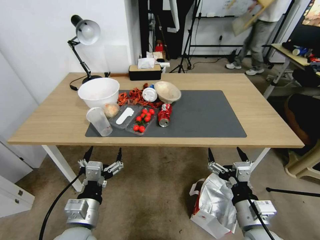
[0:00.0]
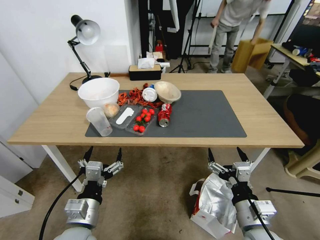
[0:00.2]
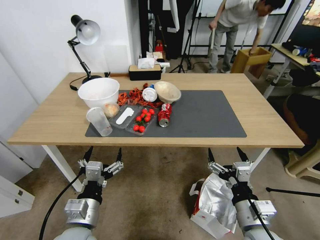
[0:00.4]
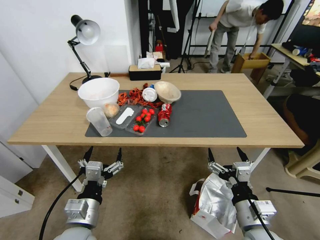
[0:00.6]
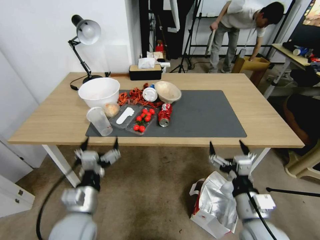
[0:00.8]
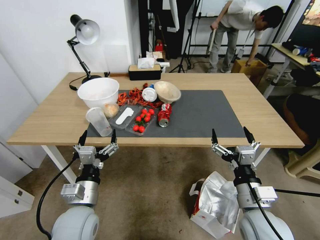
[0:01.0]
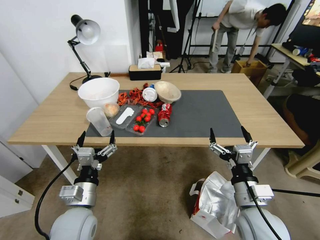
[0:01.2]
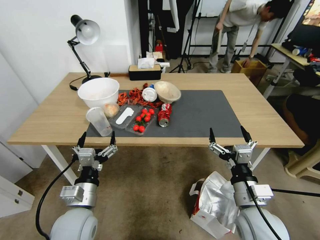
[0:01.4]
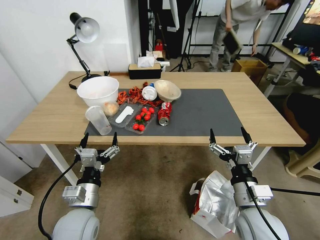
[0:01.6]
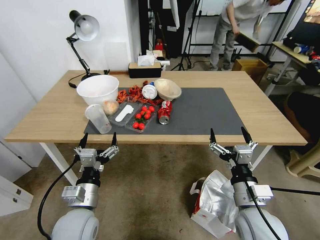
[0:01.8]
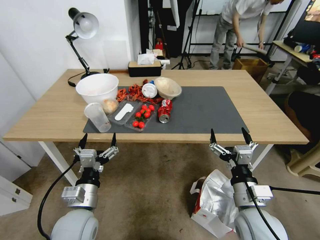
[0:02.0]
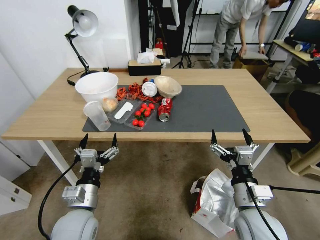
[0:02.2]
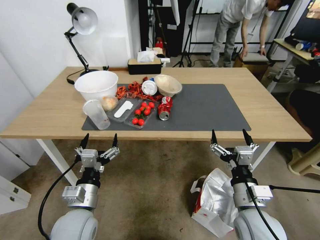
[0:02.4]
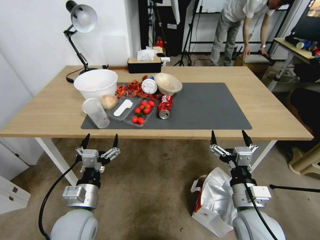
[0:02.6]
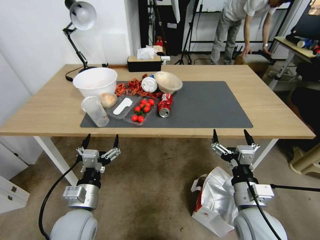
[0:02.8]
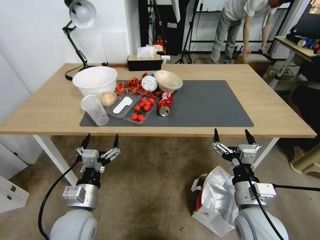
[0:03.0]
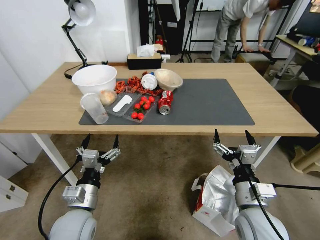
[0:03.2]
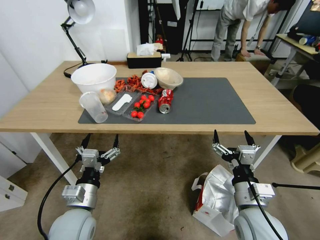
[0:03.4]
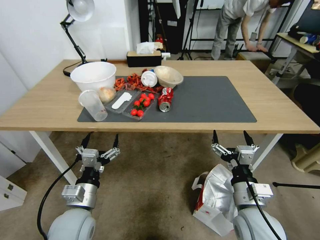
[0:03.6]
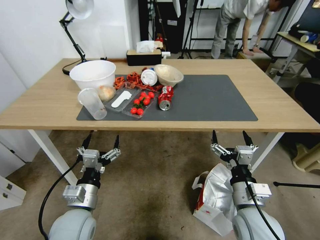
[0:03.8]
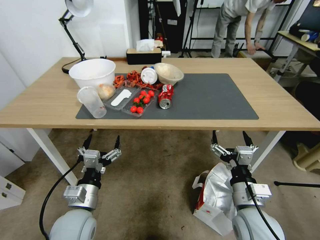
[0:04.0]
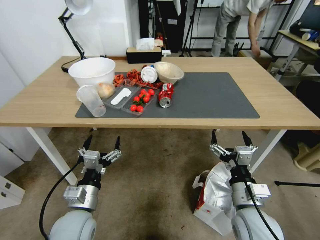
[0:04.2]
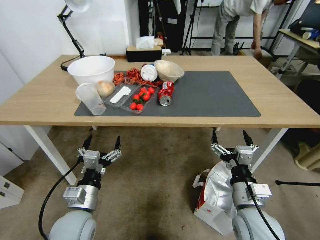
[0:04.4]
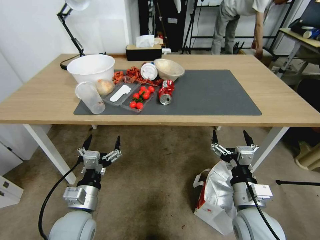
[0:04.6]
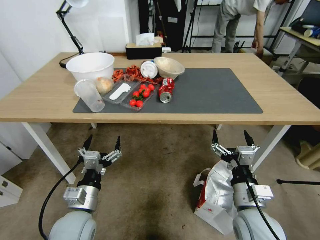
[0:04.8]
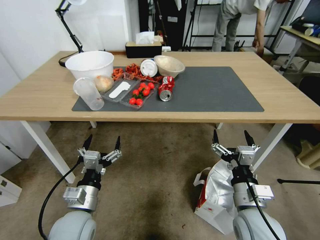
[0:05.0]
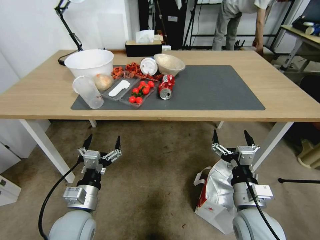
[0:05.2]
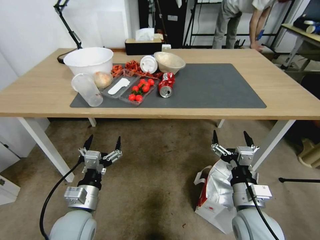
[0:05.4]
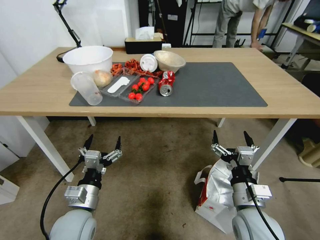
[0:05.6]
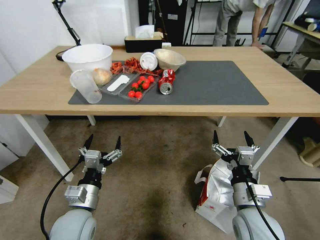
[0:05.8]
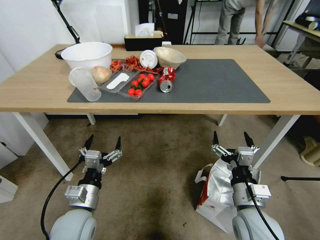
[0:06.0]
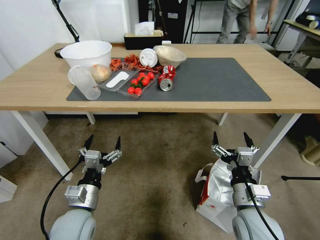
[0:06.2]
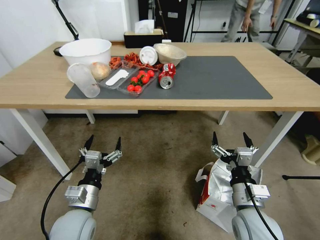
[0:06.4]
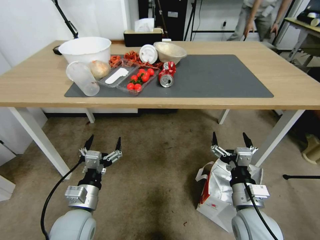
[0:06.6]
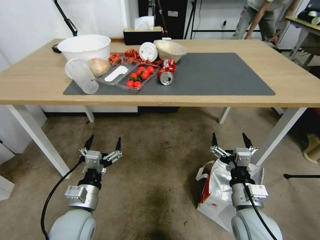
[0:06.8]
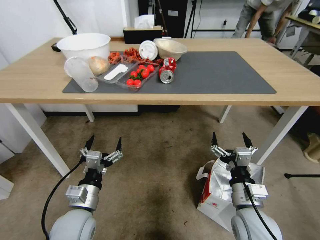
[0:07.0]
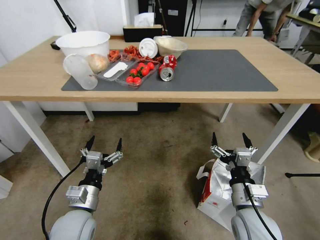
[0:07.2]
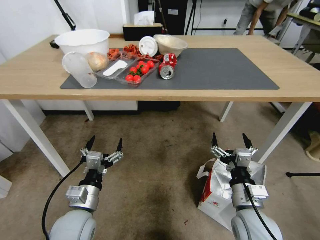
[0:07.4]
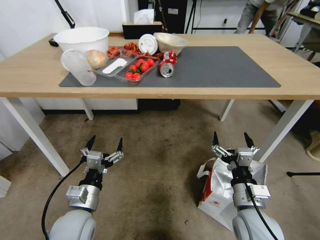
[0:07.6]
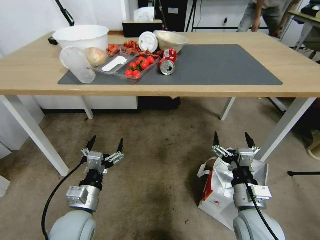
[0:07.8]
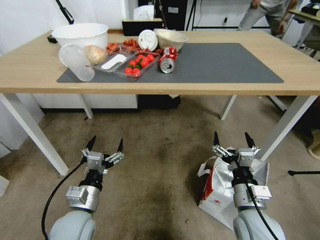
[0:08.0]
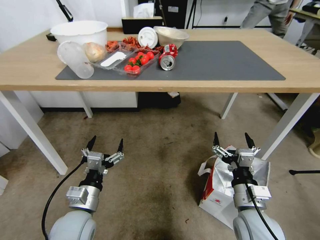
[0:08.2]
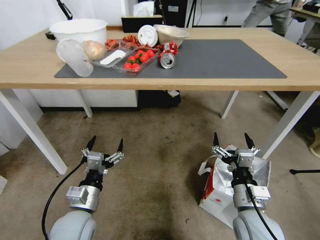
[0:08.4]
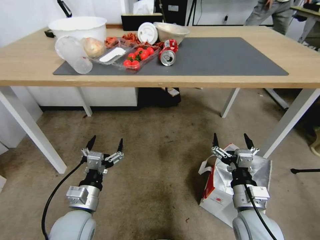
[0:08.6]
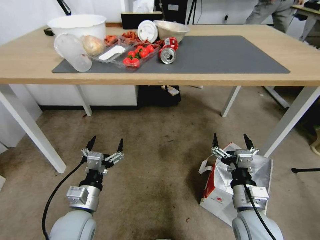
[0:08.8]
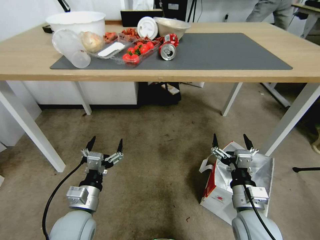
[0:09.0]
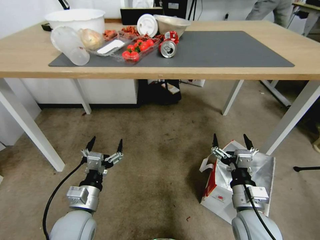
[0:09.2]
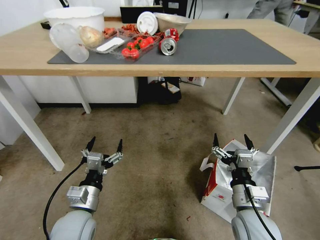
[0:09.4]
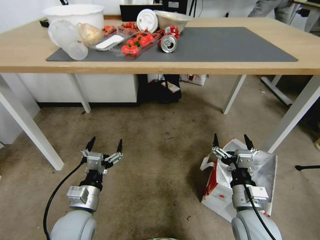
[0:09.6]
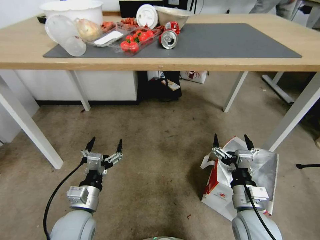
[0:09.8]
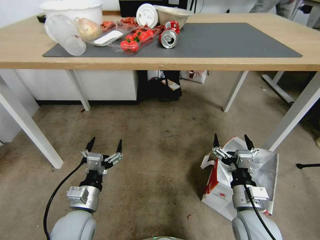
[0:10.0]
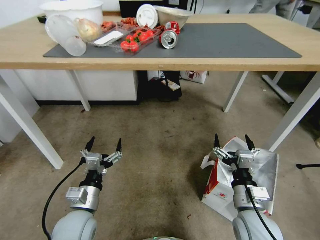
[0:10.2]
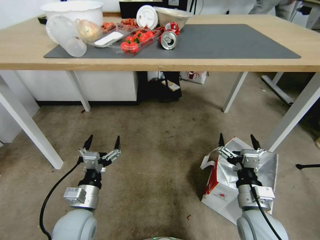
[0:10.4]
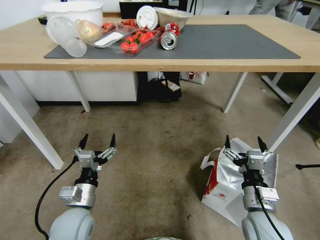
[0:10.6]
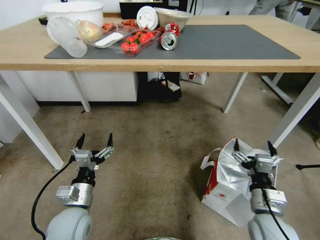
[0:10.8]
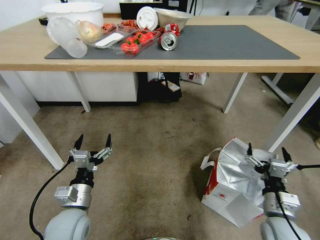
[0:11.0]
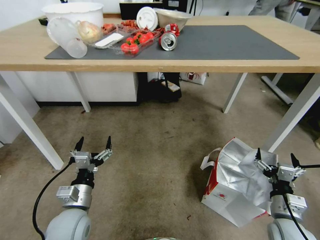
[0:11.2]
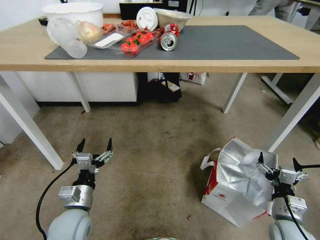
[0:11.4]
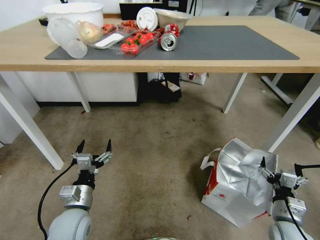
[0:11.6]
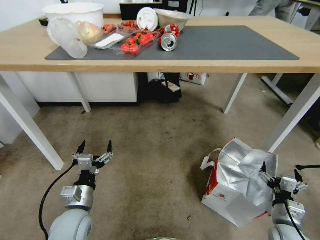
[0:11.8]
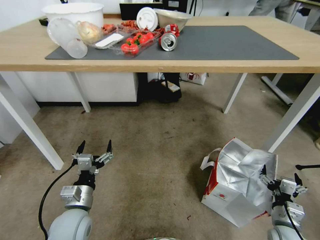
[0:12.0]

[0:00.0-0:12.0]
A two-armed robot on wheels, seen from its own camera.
Task of the whole recording: Pick up the food delivery bag from the floor and place it on the table.
0:10.4 to 0:12.0: The right gripper travels to the right and downward by approximately 20 cm.

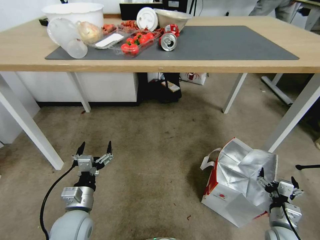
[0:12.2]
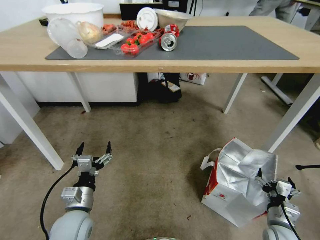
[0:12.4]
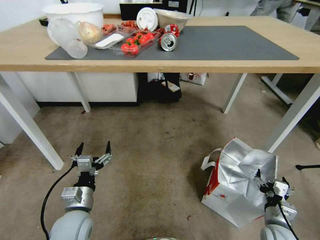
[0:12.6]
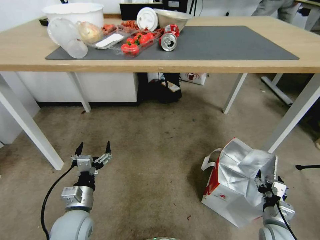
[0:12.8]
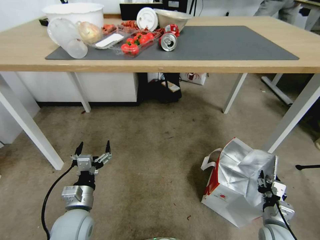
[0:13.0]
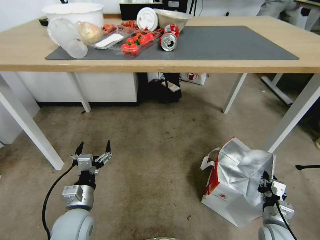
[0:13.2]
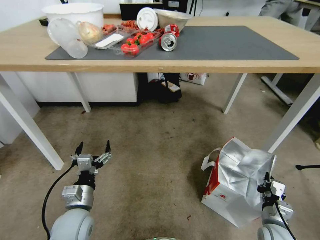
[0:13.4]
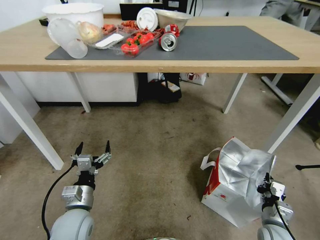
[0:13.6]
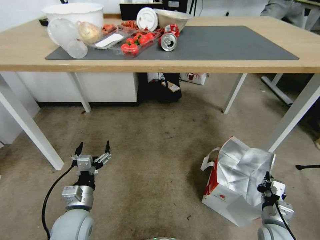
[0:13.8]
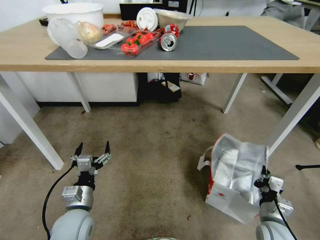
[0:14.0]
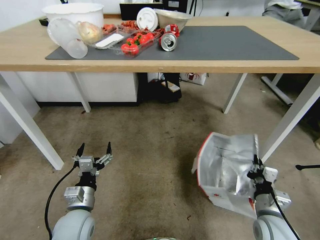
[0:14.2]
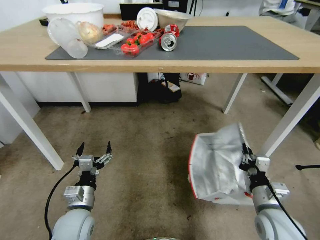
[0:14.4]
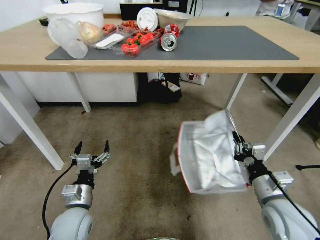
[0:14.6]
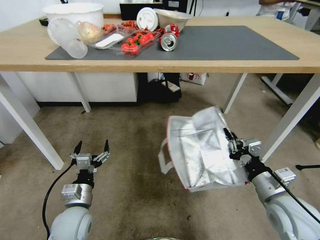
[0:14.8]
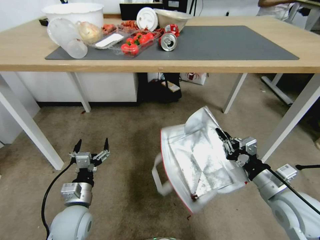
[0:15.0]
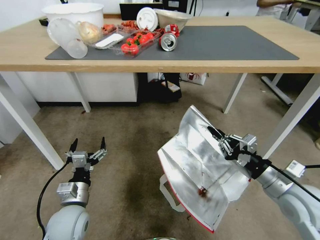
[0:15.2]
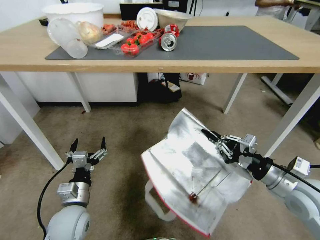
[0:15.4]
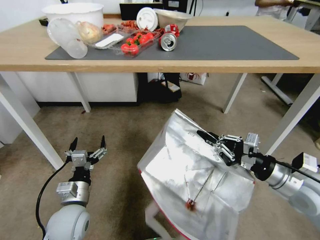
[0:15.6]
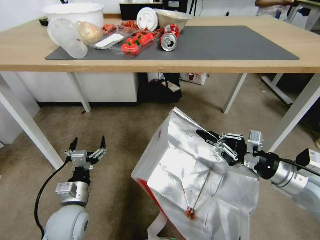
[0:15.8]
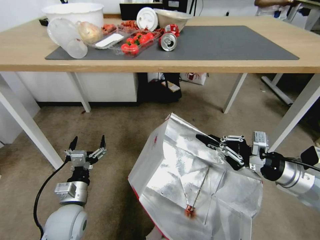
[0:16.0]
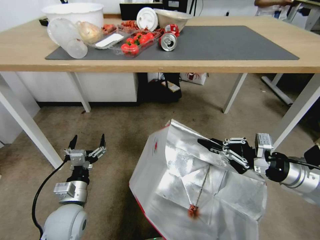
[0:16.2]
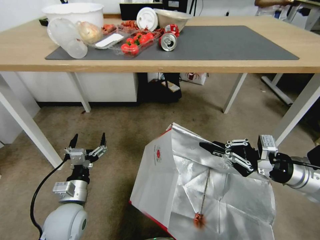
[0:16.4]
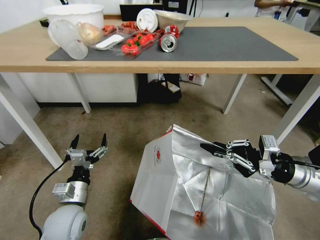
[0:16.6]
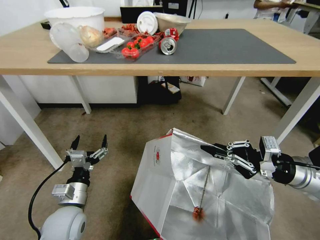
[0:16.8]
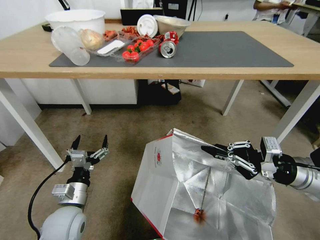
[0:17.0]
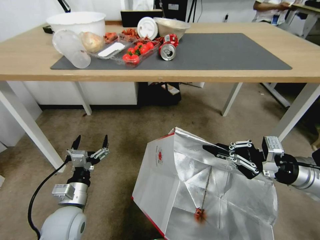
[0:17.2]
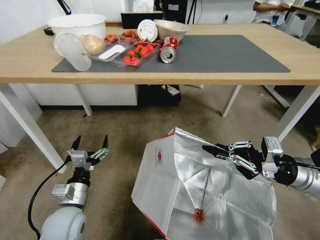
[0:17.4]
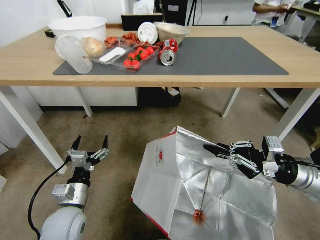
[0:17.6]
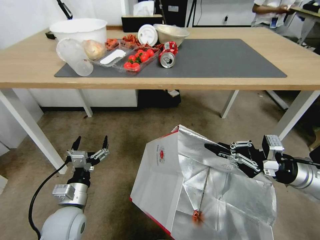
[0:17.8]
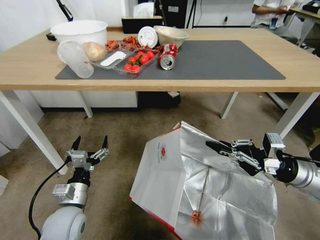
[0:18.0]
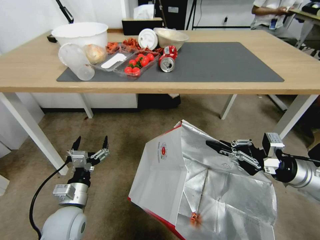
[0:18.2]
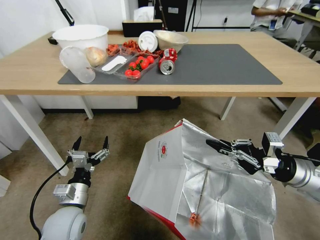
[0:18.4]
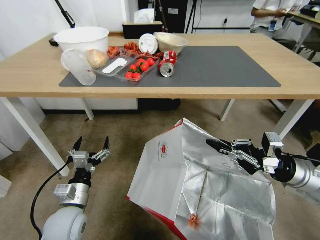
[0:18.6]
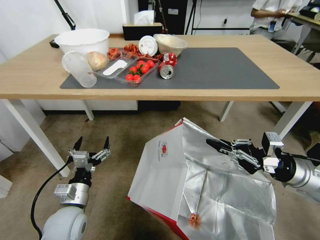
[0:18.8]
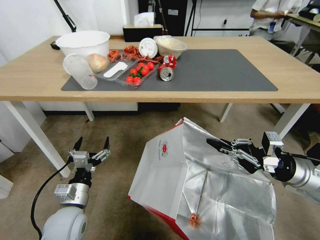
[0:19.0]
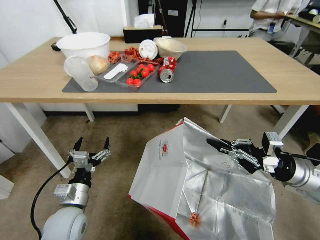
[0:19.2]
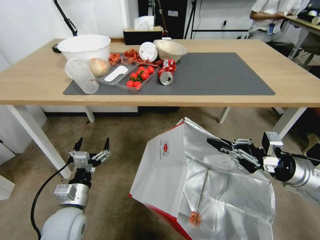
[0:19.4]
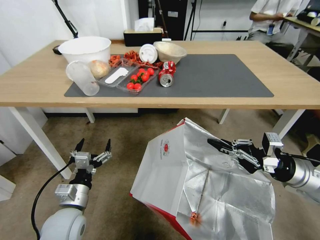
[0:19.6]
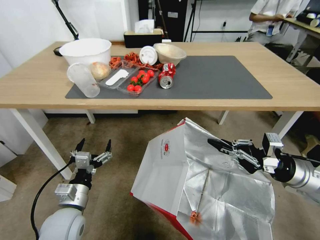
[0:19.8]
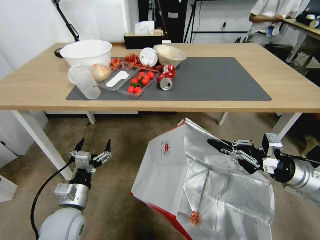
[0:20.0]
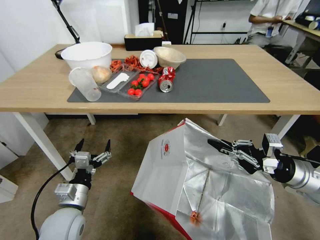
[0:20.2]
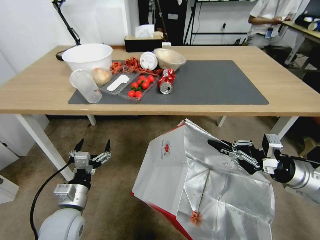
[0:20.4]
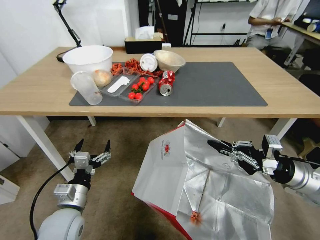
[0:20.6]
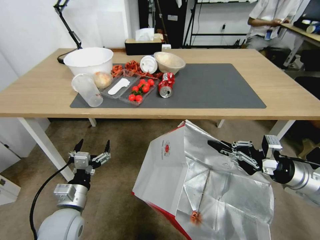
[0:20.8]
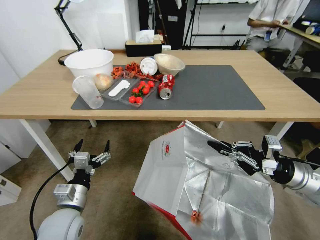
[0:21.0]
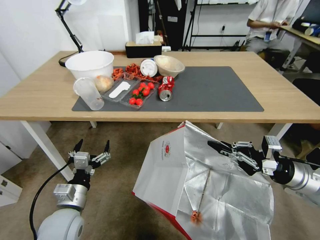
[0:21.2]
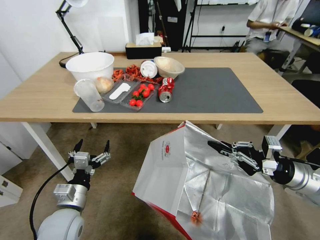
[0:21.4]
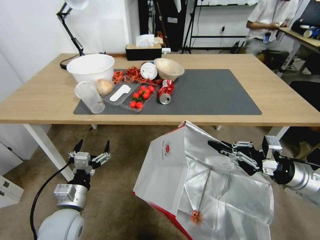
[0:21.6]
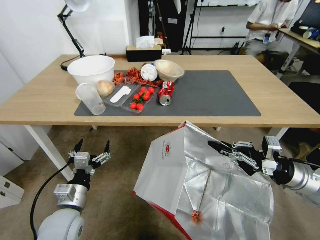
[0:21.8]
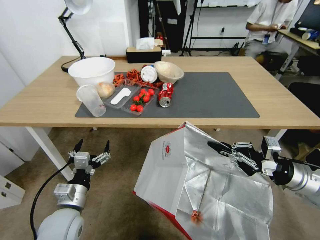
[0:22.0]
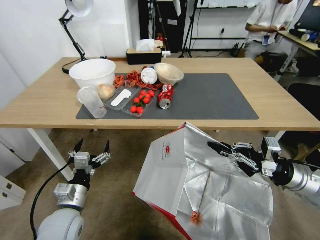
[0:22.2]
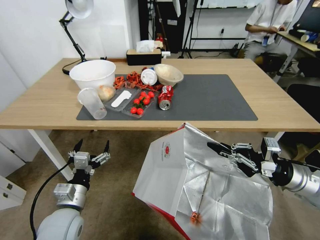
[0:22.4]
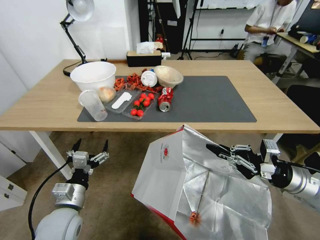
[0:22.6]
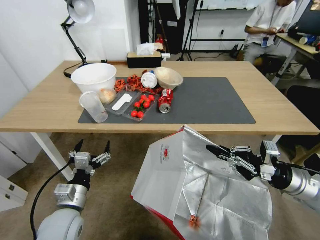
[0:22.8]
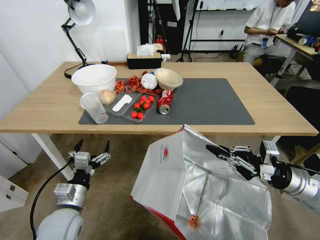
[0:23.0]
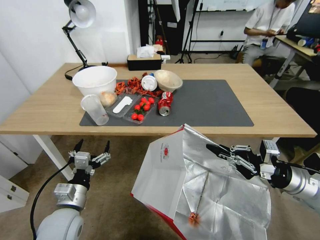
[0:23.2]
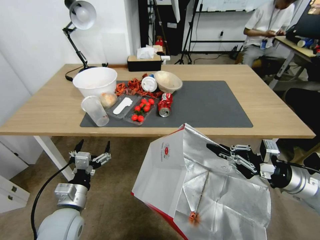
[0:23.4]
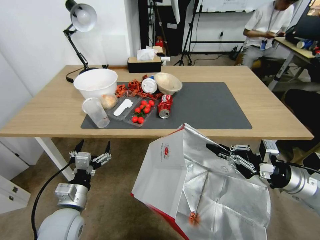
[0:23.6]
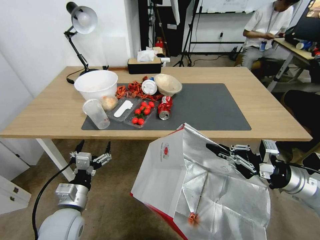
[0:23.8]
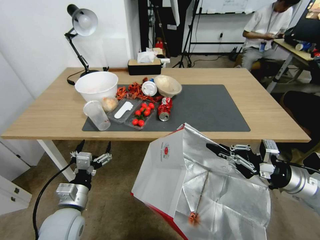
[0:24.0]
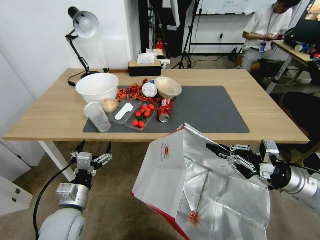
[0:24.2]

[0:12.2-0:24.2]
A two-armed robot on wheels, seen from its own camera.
Task of the whole recording: Pick up the food delivery bag from the floor and place it on the table.
0:12.2 to 0:13.8: The right gripper closes.
0:13.8 to 0:15.2: The right gripper is displaced upward by approximately 20 cm.
0:15.2 to 0:16.6: The right gripper shifts about 5 cm upward.
